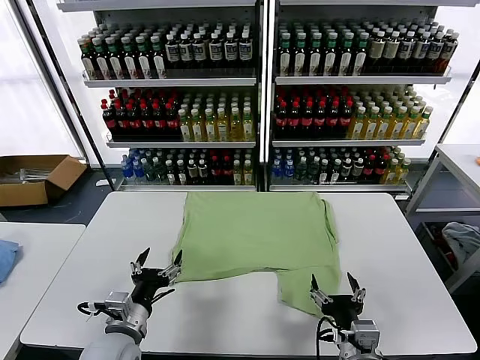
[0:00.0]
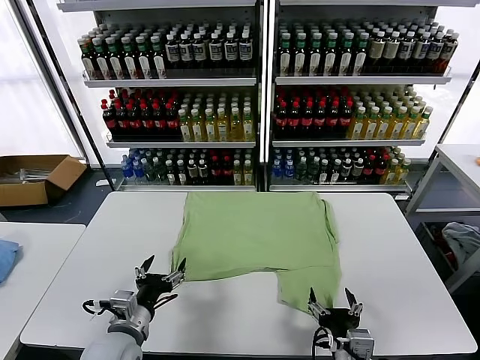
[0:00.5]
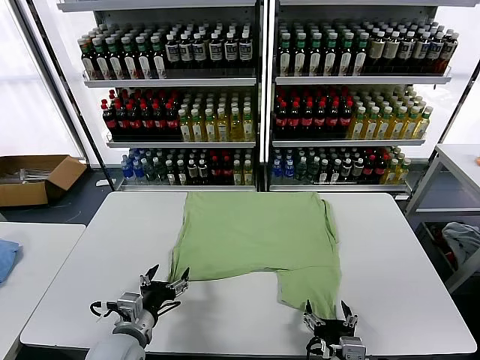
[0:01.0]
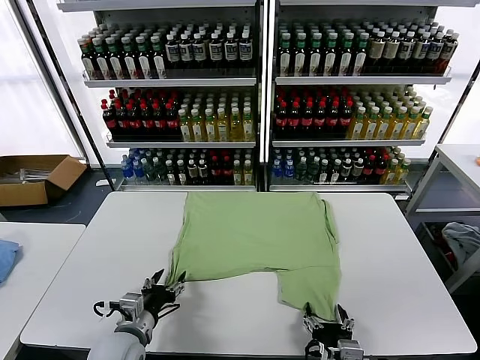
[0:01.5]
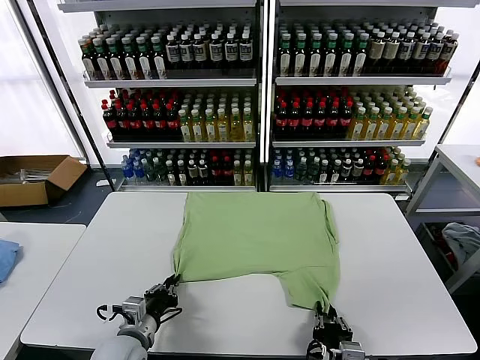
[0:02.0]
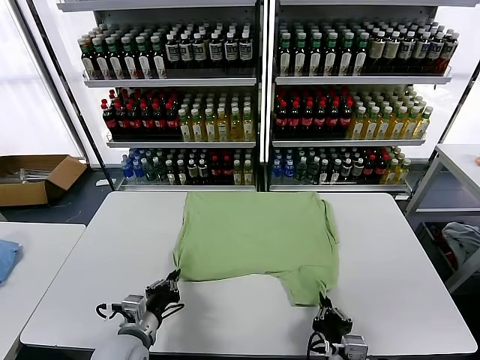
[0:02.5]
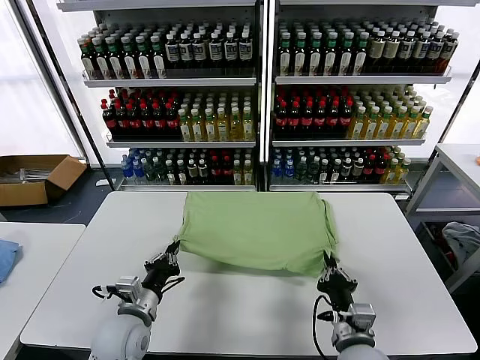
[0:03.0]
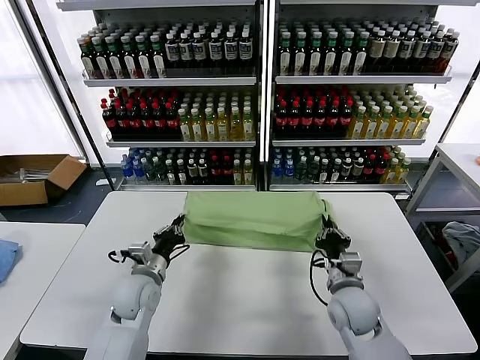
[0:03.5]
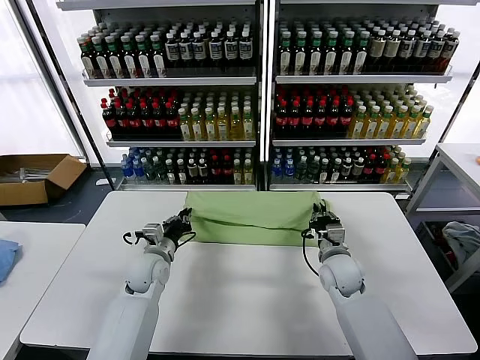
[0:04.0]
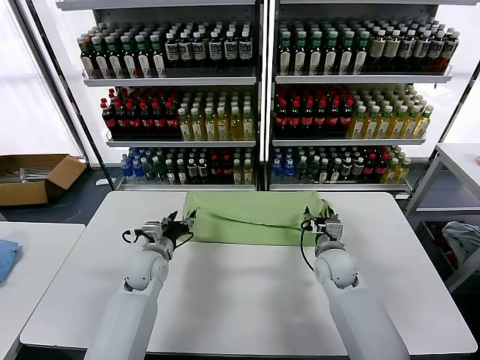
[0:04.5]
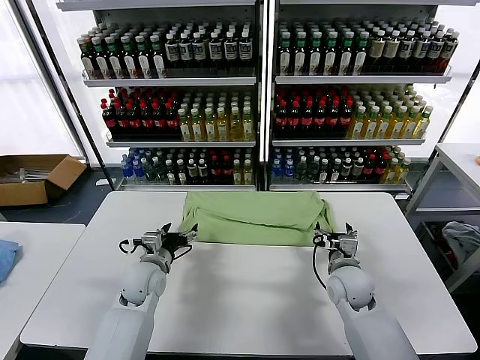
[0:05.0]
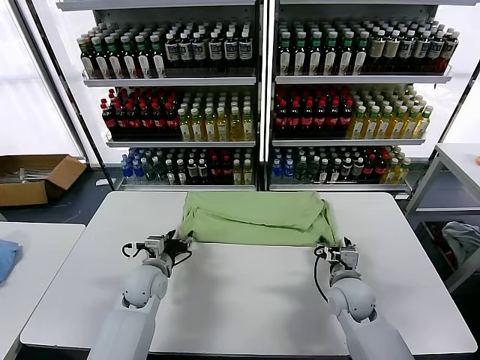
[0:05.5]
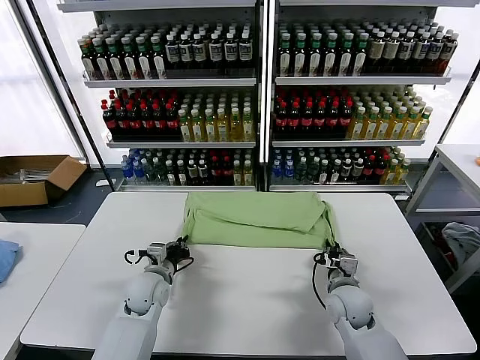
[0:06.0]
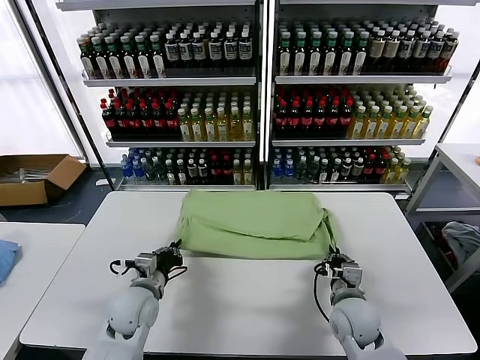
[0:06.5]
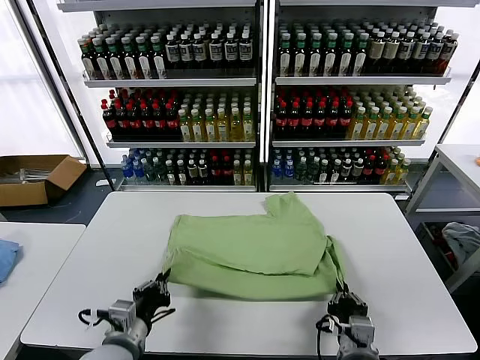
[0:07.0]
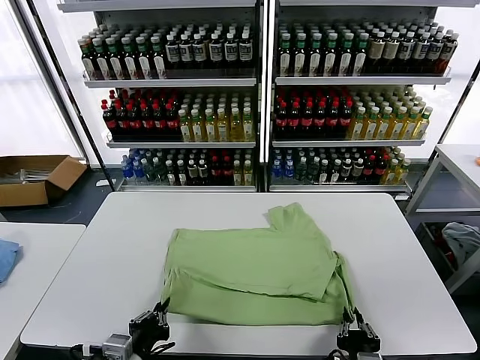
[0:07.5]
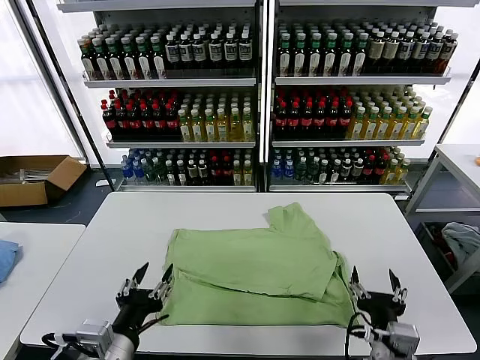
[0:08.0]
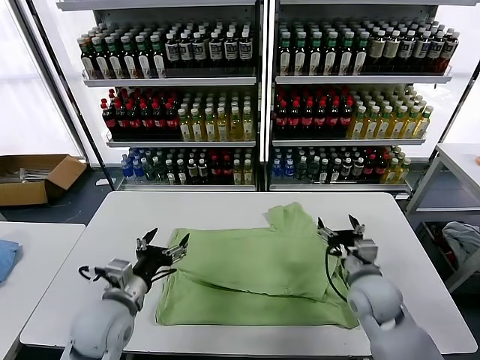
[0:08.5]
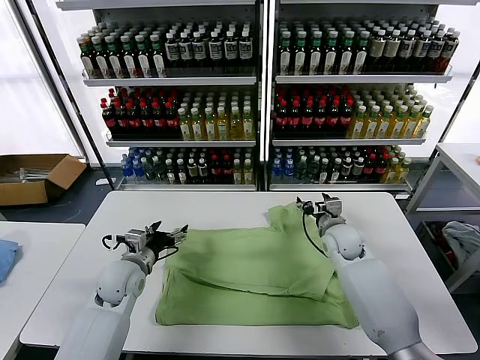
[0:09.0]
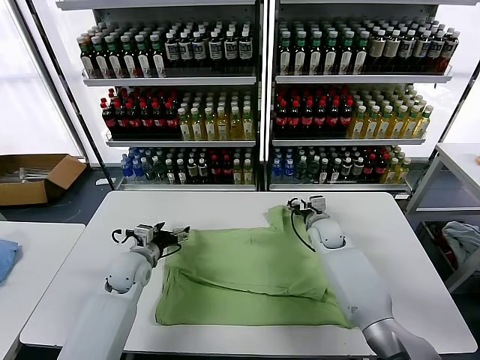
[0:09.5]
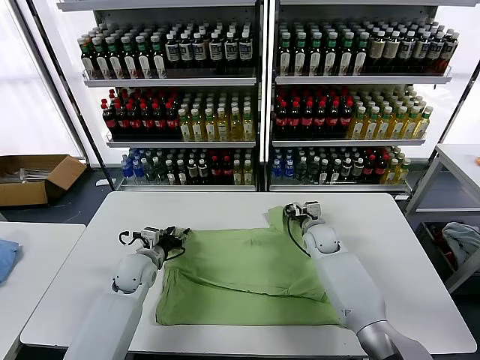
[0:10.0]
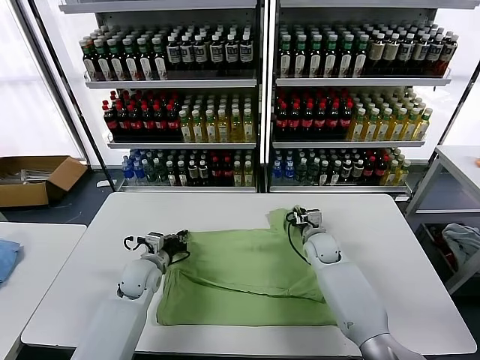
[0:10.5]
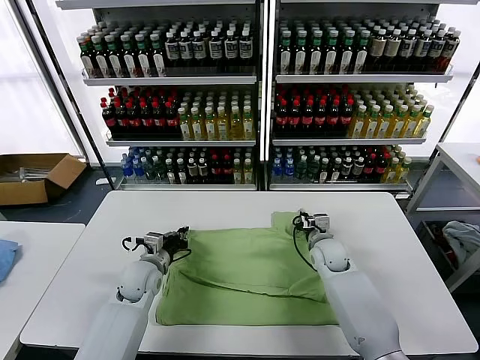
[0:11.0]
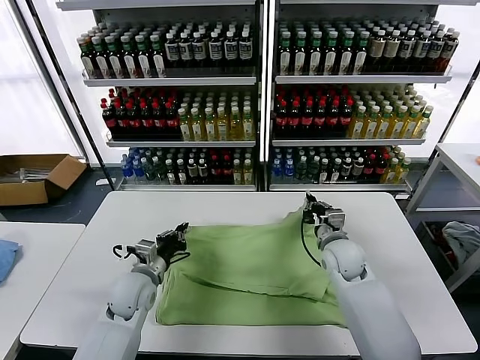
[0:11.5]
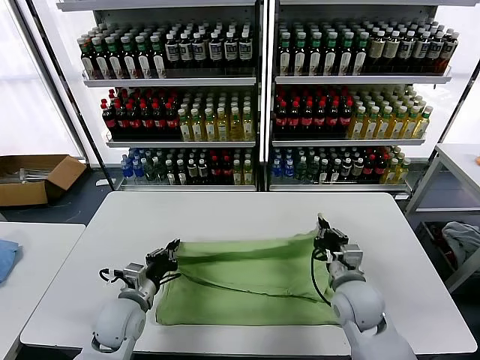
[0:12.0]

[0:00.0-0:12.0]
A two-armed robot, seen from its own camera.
Task of the whole recording: fold and organize the clothes.
Step, 0:00.0 to 0:02.0: use both grippers simultaneously to clamp the lower edge of the clothing fabric.
Step, 0:02.5 to 0:04.0: use both grippers to drag the lower edge of the fabric forward and fold it over the upper edge.
Step, 0:04.5 to 0:07.5: Drag the clothes downward with both gripper.
Step, 0:08.0 to 0:10.5: use both grippers simultaneously to clamp the upper edge of the clothing fabric.
0:02.0 to 0:04.0: Both grippers travel together forward, about 25 cm.
0:04.0 to 0:06.0: The left gripper shifts by approximately 5 cm, and opens and closes again. The right gripper shifts roughly 10 cm backward, and opens and closes again.
0:06.0 to 0:08.0: Both grippers move backward and upward, approximately 25 cm. The left gripper opens up, while the right gripper opens up.
0:08.0 to 0:10.0: The left gripper is displaced forward and downward by roughly 30 cm. The right gripper goes about 35 cm forward.
0:10.0 to 0:12.0: The left gripper goes some 10 cm backward, and closes up. Meanwhile the right gripper travels backward by about 20 cm, and closes.

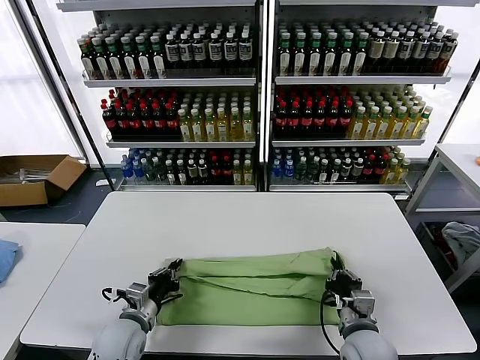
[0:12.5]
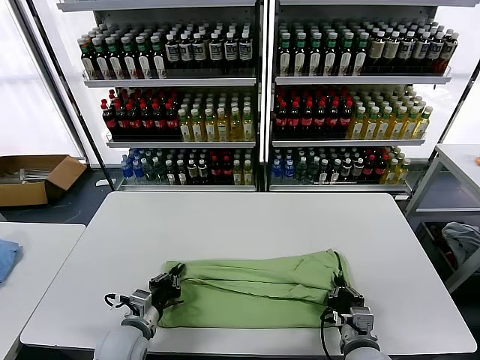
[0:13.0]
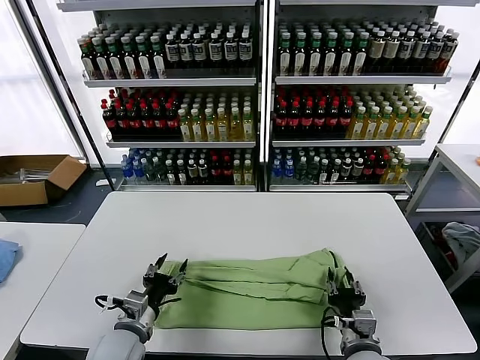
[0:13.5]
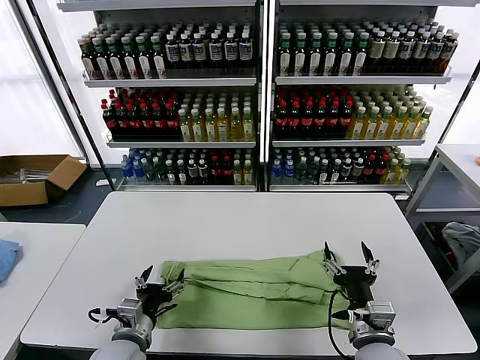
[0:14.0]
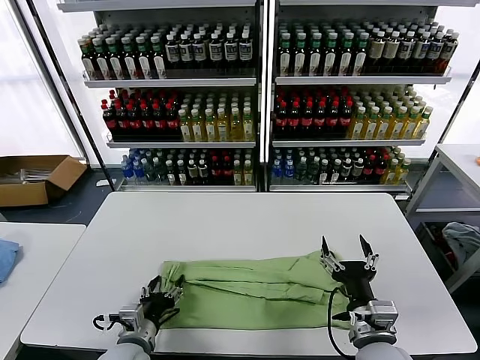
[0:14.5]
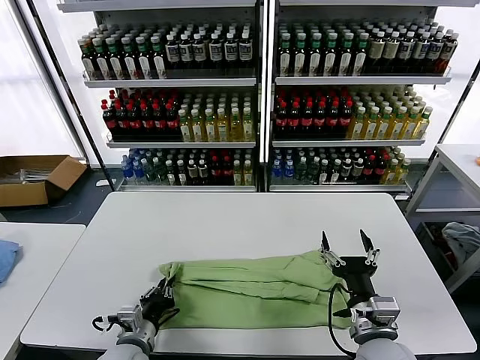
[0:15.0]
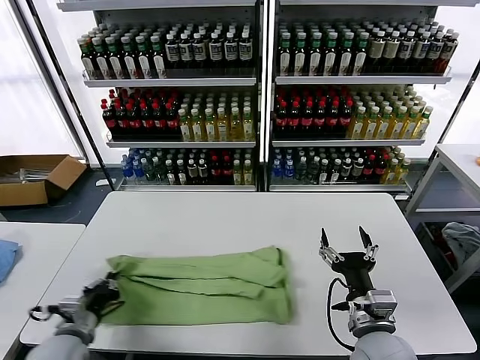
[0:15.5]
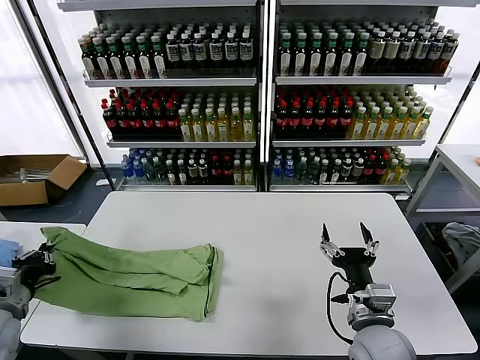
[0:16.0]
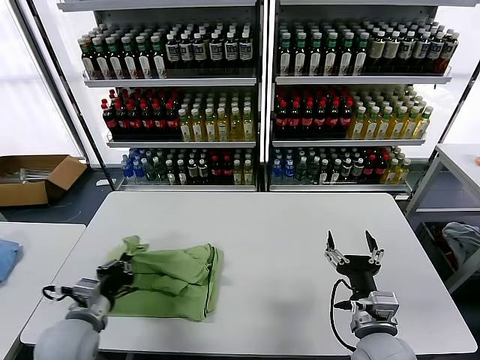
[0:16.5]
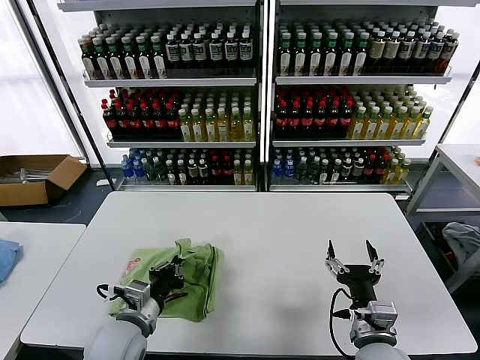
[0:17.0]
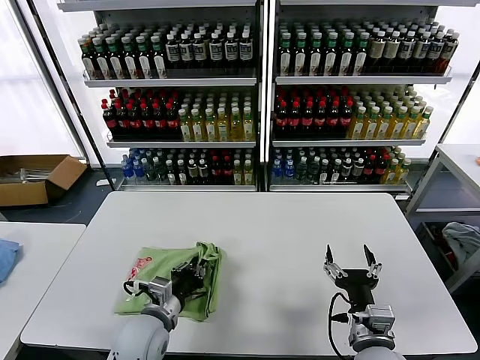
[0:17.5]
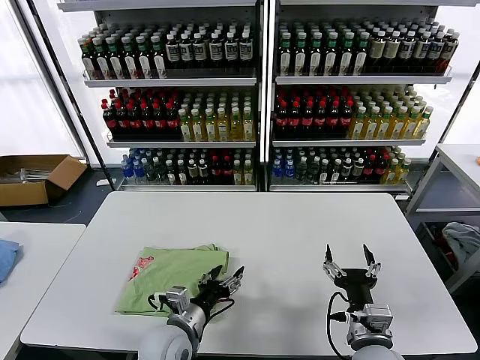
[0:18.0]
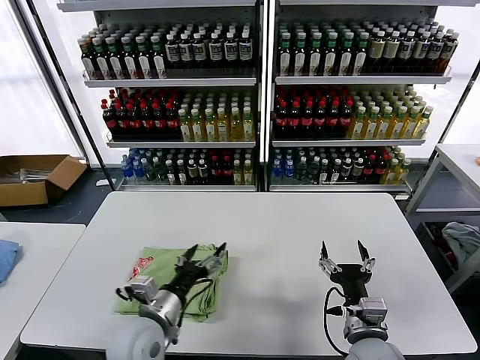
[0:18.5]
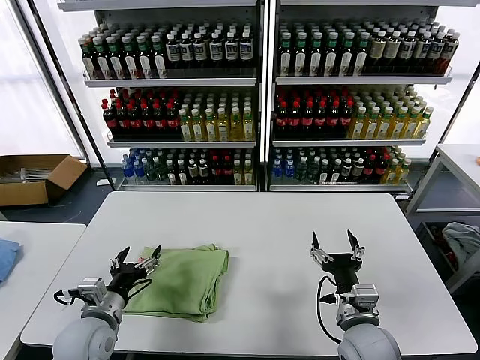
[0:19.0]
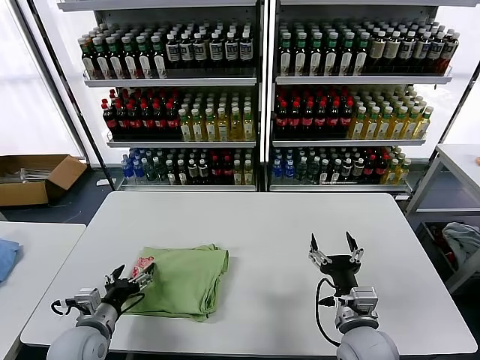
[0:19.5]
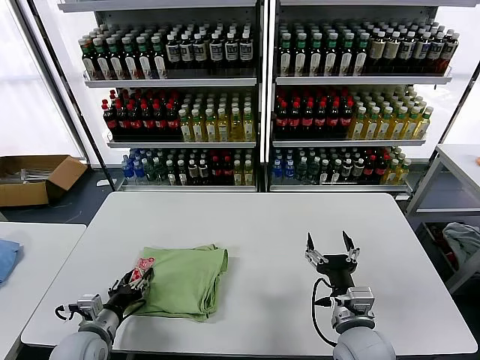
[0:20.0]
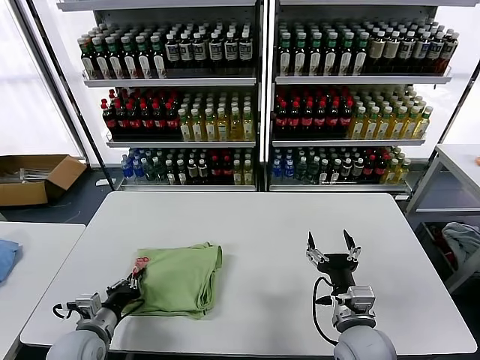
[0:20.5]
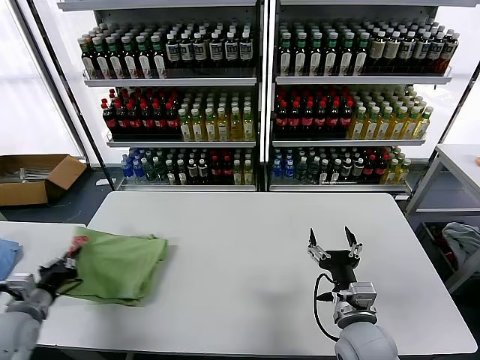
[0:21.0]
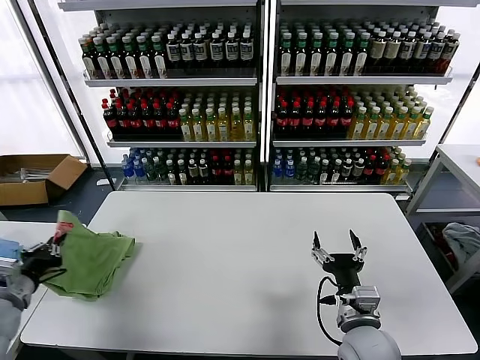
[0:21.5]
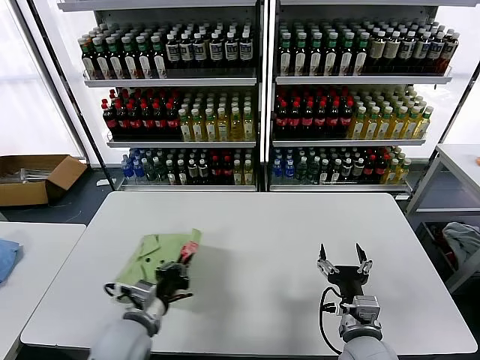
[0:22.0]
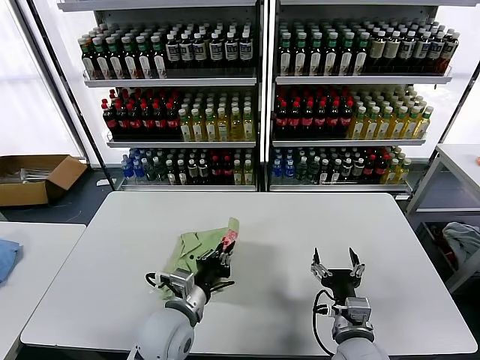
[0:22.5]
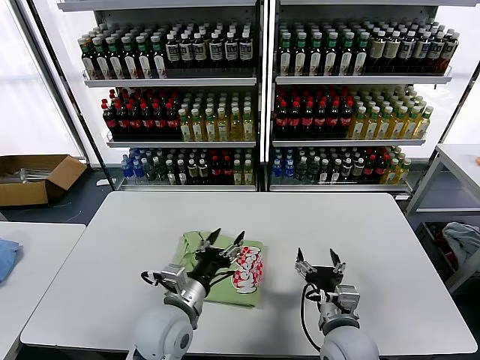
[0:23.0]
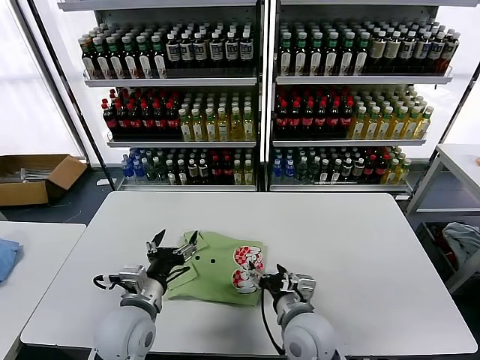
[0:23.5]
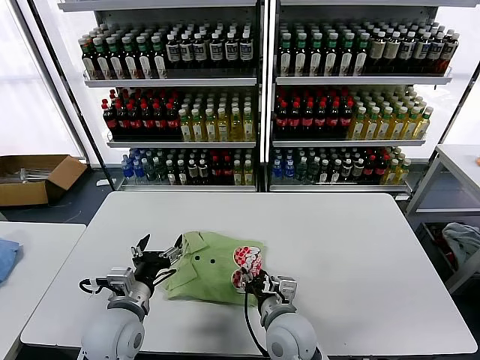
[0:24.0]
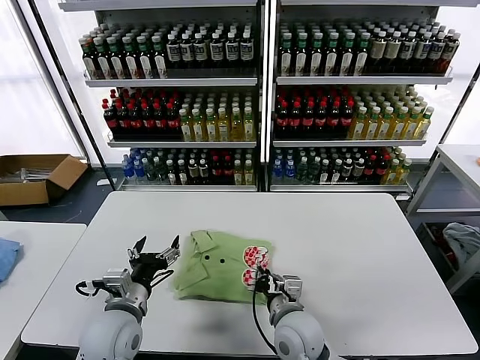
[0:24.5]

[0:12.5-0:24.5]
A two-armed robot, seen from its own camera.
Task of the whole recording: fold and organize the clothes.
Step, 0:14.0 to 0:15.0: use the left gripper to clamp the left edge of the fabric.
Step, 0:15.5 to 0:18.0: use the left gripper to drag the left edge of the fabric to the left and folds it over the right edge.
Step, 0:18.5 to 0:22.5: Flip the folded clothes over with left gripper.
0:12.5 to 0:14.5: The left gripper moves some 5 cm, and opens its fingers; the right gripper goes roughly 5 cm upward, and opens.
0:14.5 to 0:16.5: The left gripper travels to the left and upward by about 10 cm, and closes.
0:16.5 to 0:18.5: The left gripper is displaced to the right by about 15 cm, and opens its fingers.
0:18.5 to 0:20.5: The left gripper is displaced to the left and downward by about 15 cm, and closes.
0:20.5 to 0:22.5: The left gripper is displaced to the right by about 20 cm.
0:22.5 to 0:24.5: The right gripper shifts some 10 cm to the left and forward, and closes its fingers. Meanwhile the left gripper shifts some 10 cm to the left, and opens its fingers.

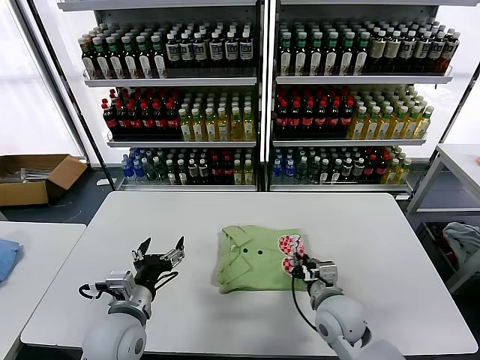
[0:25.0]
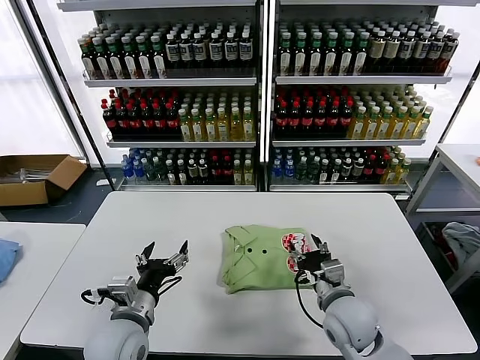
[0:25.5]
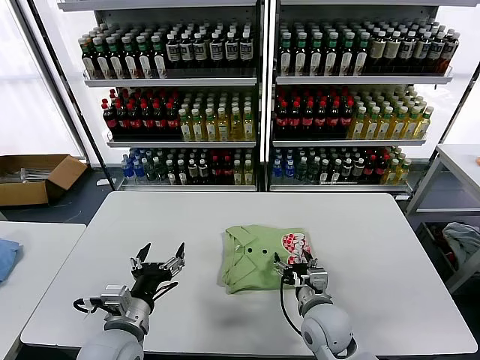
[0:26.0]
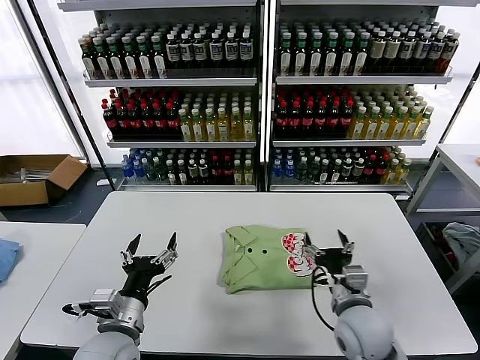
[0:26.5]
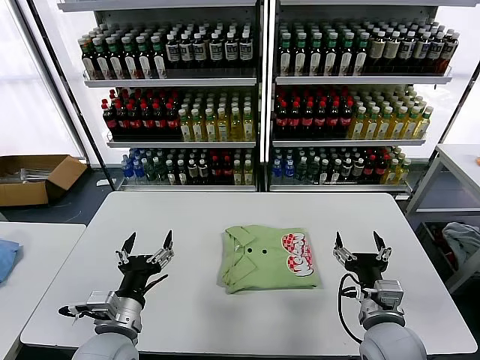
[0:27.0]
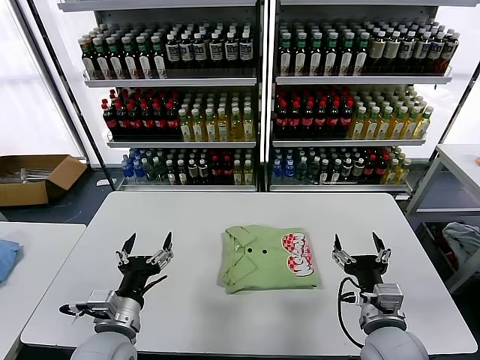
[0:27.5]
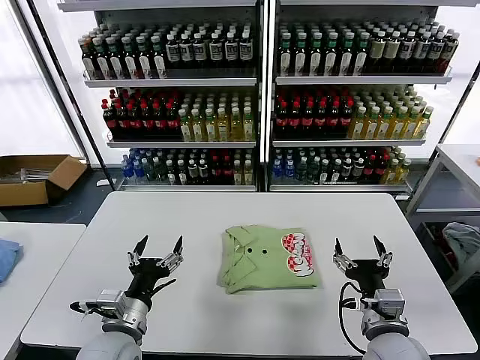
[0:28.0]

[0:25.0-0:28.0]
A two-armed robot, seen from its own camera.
Task of the whole recording: fold and organize the clothes.
0:25.0 to 0:26.5: The right gripper moves roughly 5 cm, and opens.
0:26.5 to 0:28.0: The right gripper travels backward by approximately 5 cm.
